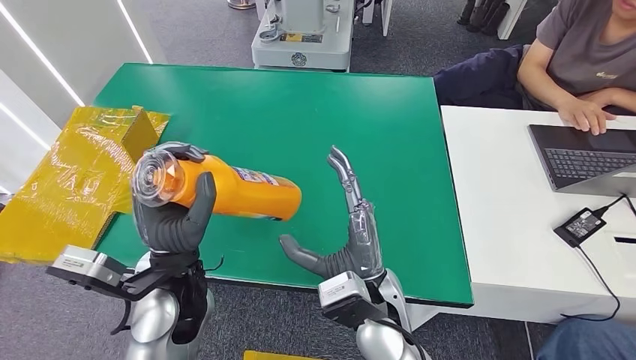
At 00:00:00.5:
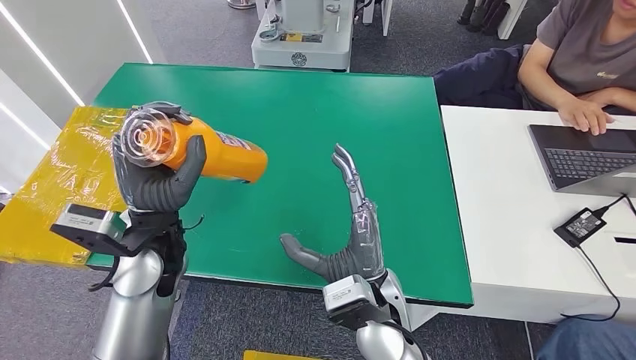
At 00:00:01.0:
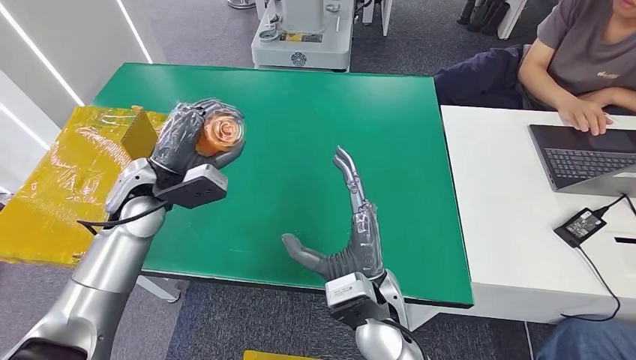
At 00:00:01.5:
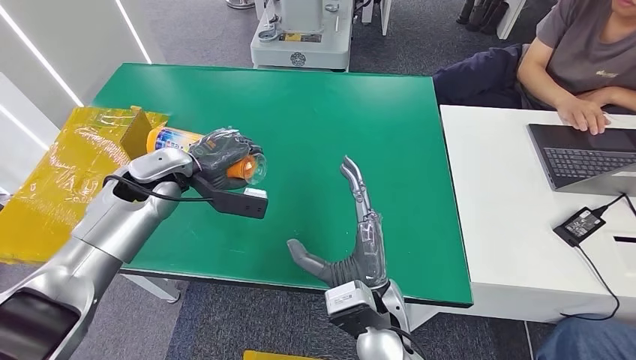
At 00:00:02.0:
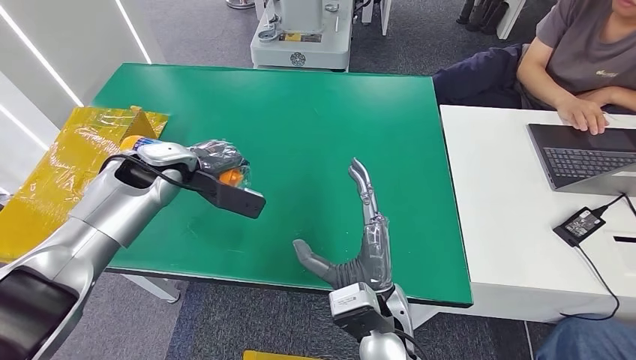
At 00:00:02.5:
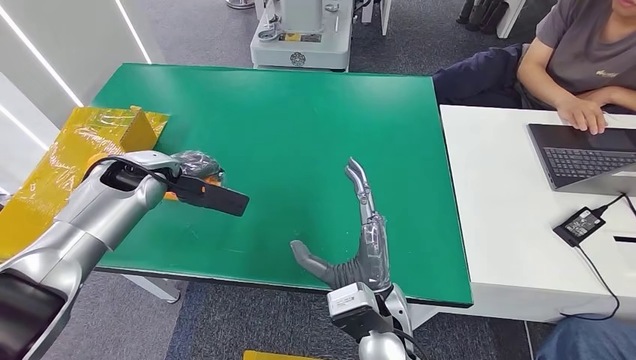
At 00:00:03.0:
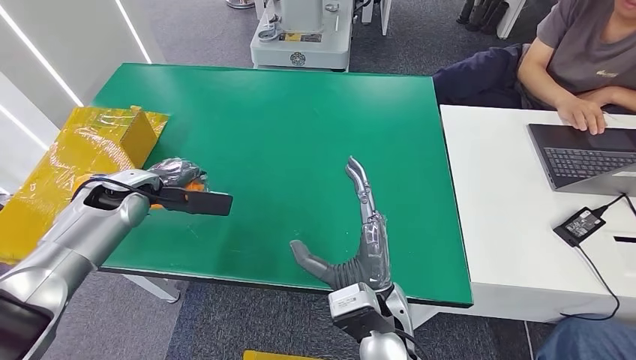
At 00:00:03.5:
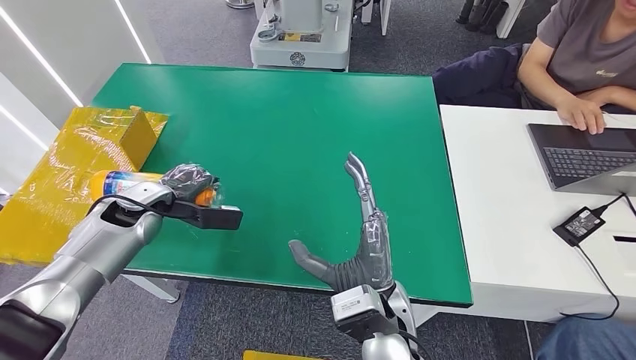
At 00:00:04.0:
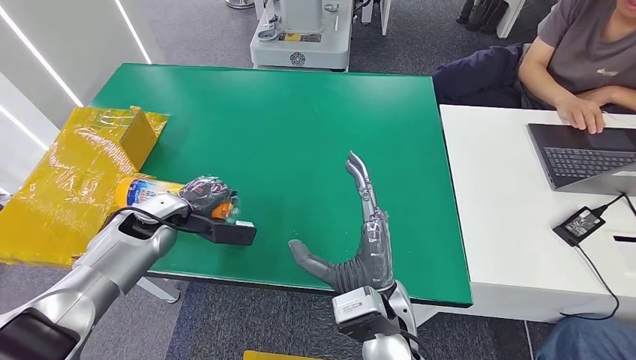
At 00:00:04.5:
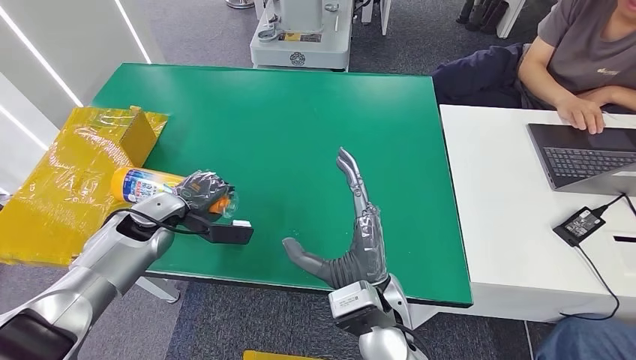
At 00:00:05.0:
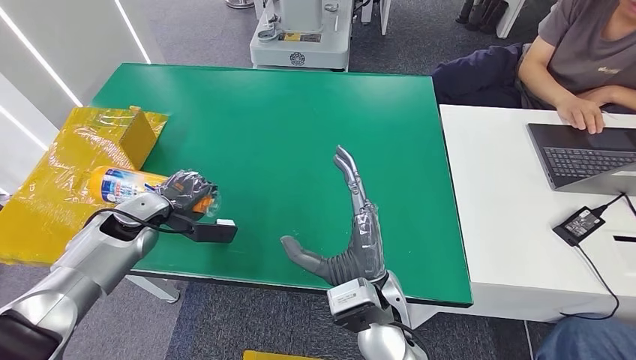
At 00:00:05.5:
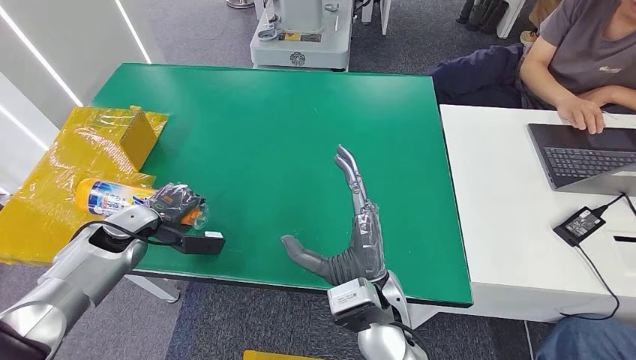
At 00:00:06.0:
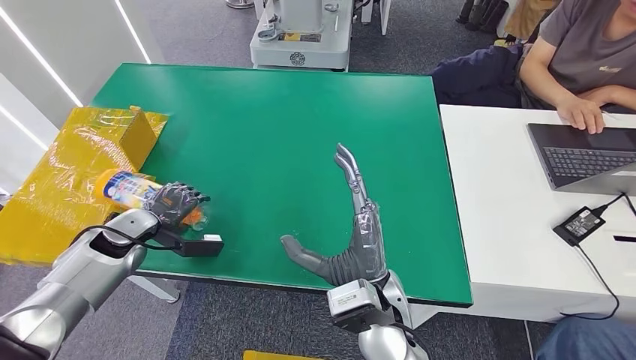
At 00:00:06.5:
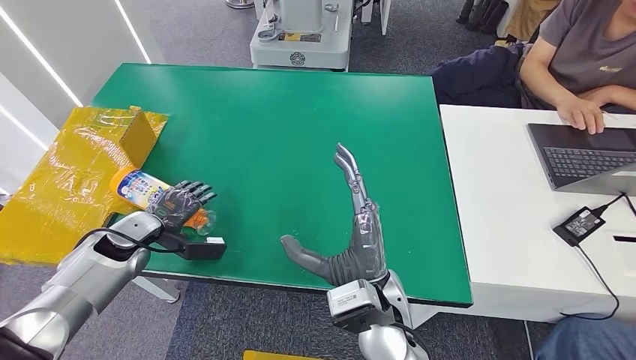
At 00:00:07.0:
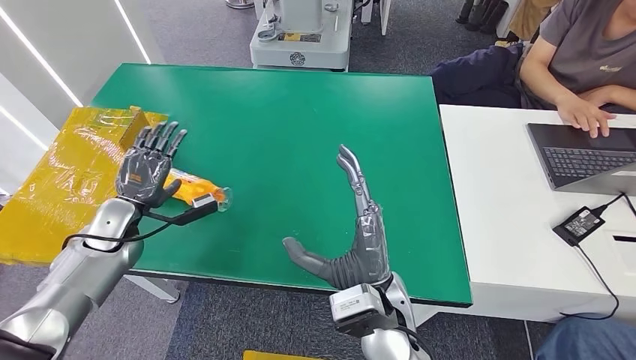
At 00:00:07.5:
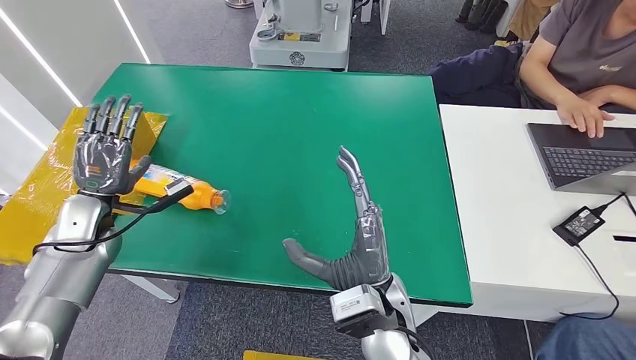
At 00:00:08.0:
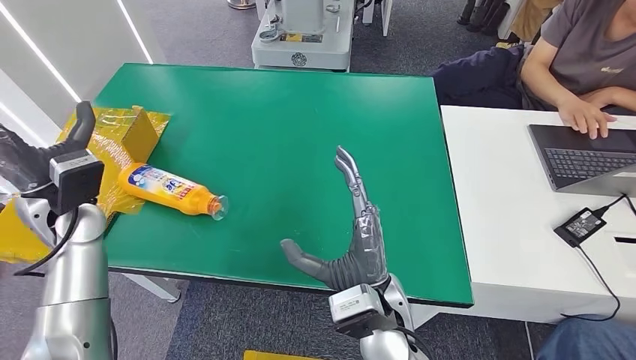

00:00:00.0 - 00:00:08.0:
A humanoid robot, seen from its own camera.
Step, 00:00:00.0 - 00:00:08.0: Turn the bottle to the front side.
00:00:00.0 - 00:00:02.0: The left hand travels to the left and forward by about 30 cm.
00:00:02.0 - 00:00:04.0: The left hand heads downward and backward, covering approximately 10 cm.
00:00:04.0 - 00:00:06.0: The left hand goes some 5 cm to the left.
00:00:06.0 - 00:00:08.0: The left hand moves to the right and upward, approximately 15 cm.

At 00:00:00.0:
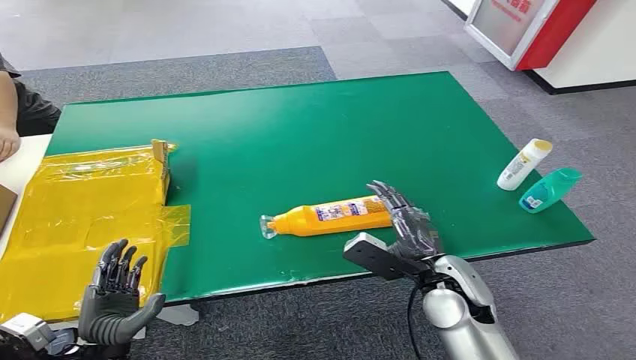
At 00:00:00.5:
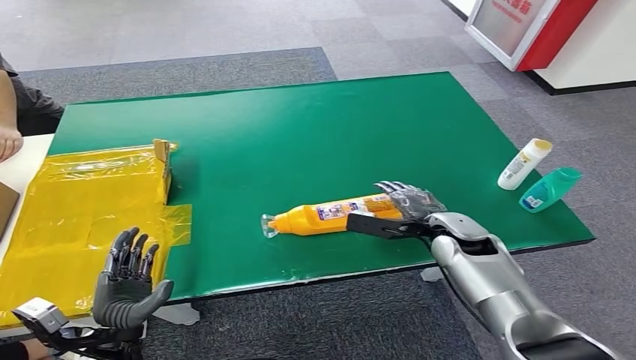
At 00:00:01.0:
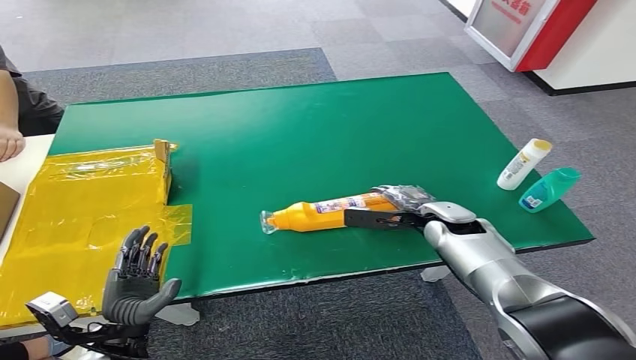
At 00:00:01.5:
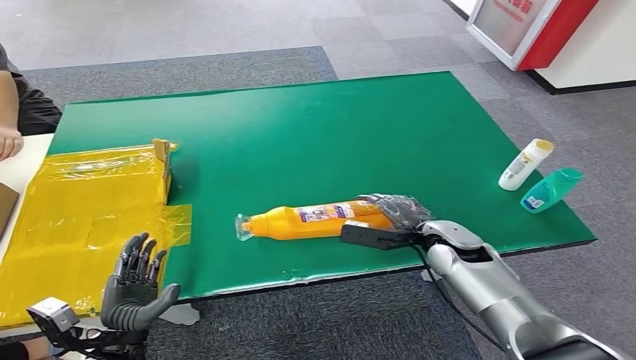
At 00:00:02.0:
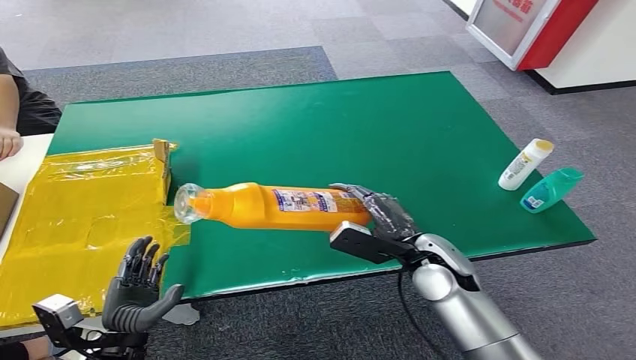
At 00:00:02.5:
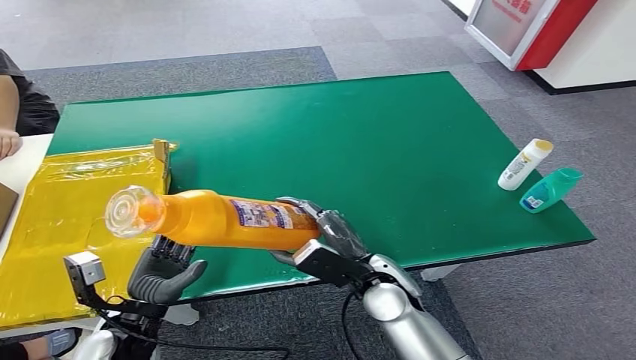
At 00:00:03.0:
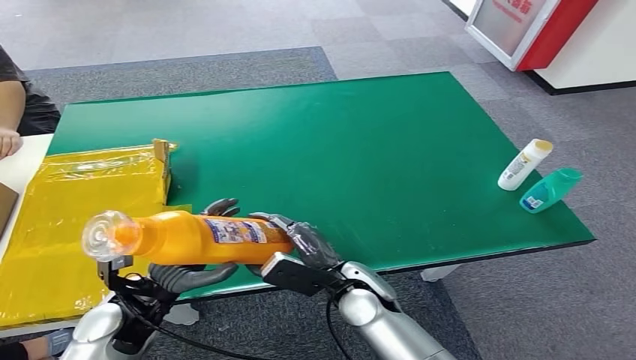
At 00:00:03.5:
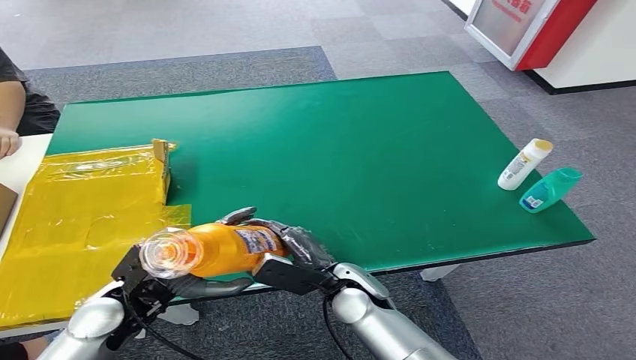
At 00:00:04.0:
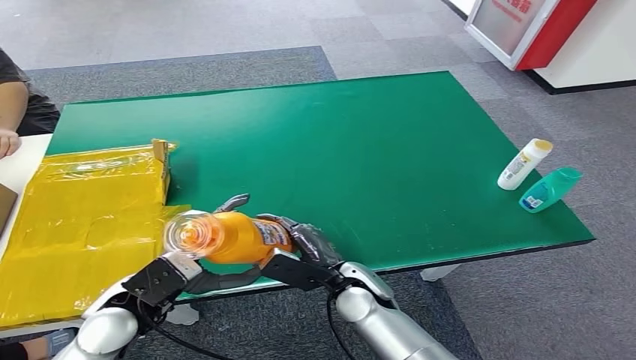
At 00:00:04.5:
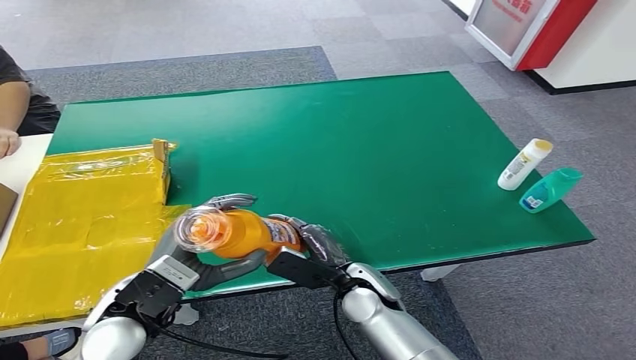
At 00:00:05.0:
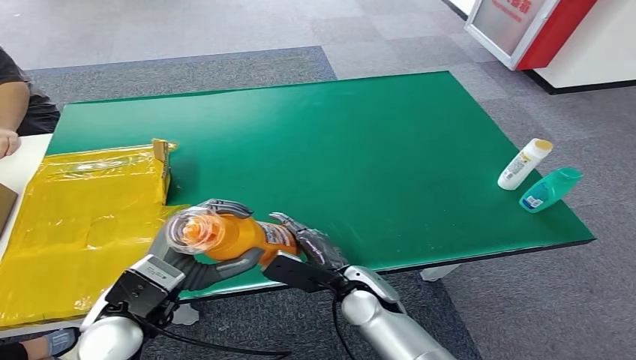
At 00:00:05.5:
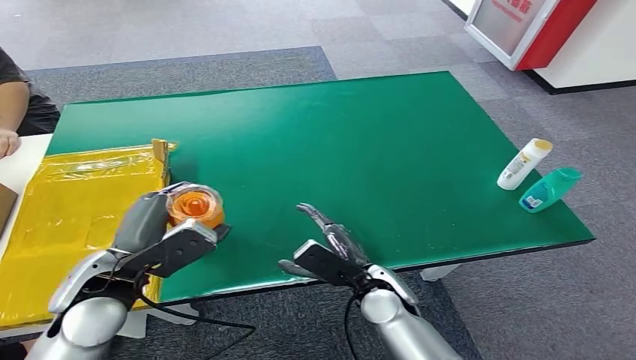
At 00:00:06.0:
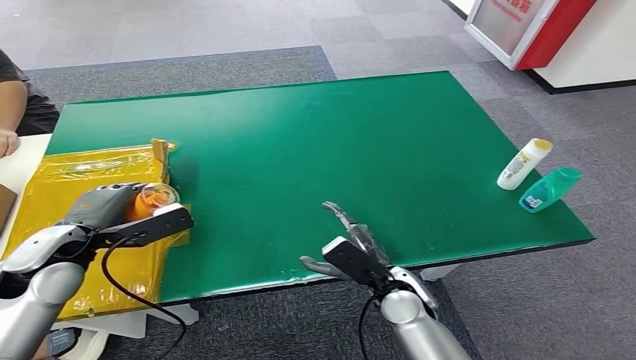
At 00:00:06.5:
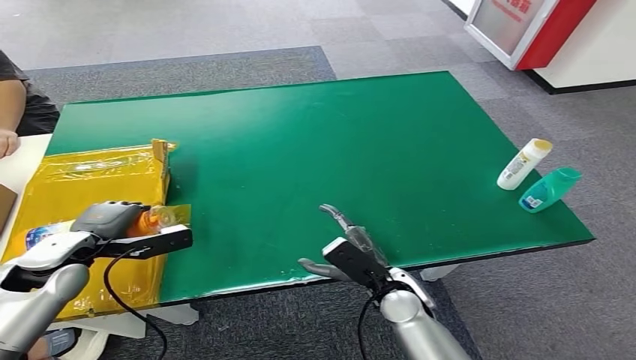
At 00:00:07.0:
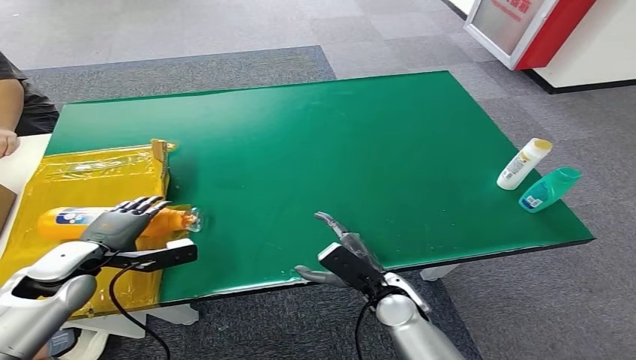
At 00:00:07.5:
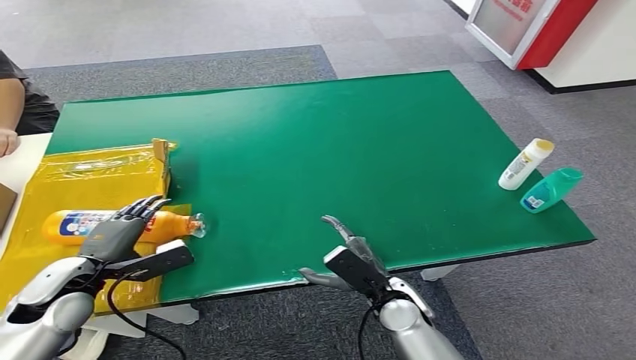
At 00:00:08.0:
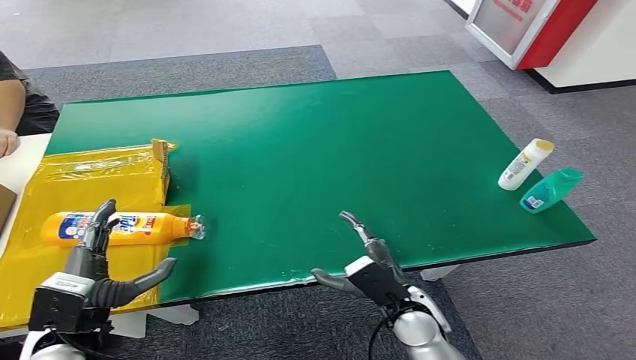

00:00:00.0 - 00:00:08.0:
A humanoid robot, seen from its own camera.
Step, 00:00:00.0 - 00:00:01.5: Pick up the bottle from the table.
Step, 00:00:02.0 - 00:00:08.0: Turn the bottle to the front side.
00:00:02.0 - 00:00:04.0: The right hand shifts about 15 cm to the left and downward. Meanwhile the left hand moves upward, forward and to the right, approximately 15 cm.
00:00:04.0 - 00:00:06.0: The left hand is displaced to the left and forward by roughly 10 cm. Meanwhile the right hand is displaced to the right by approximately 5 cm.
00:00:06.0 - 00:00:08.0: The left hand moves backward and downward, about 15 cm.

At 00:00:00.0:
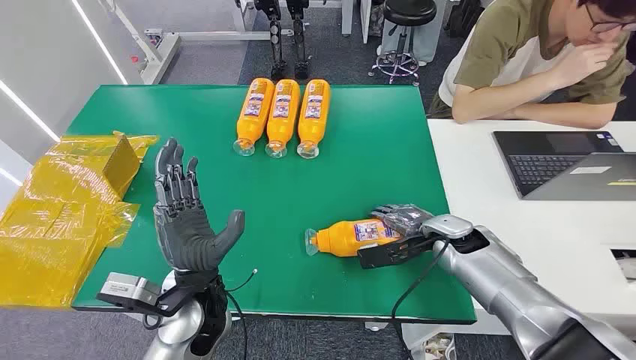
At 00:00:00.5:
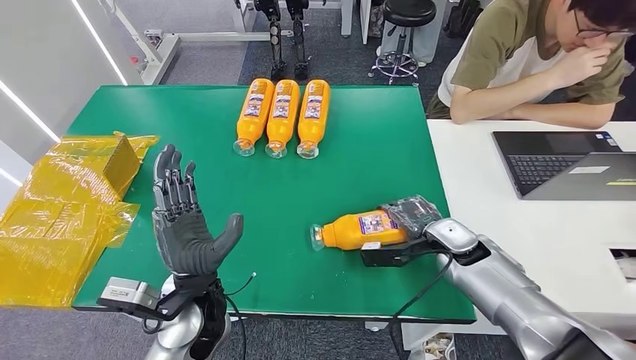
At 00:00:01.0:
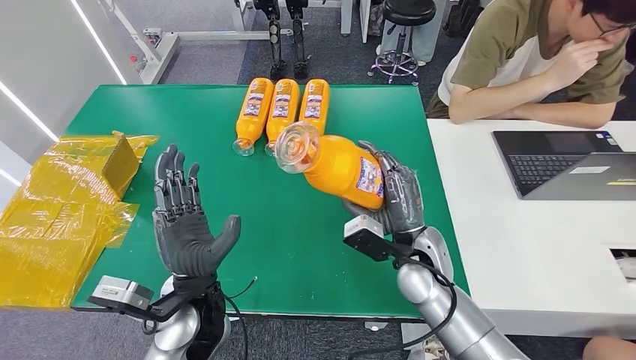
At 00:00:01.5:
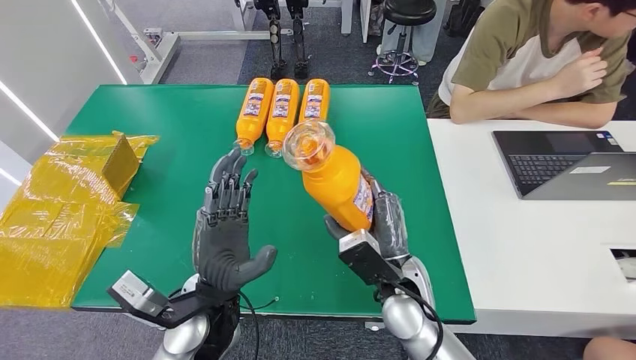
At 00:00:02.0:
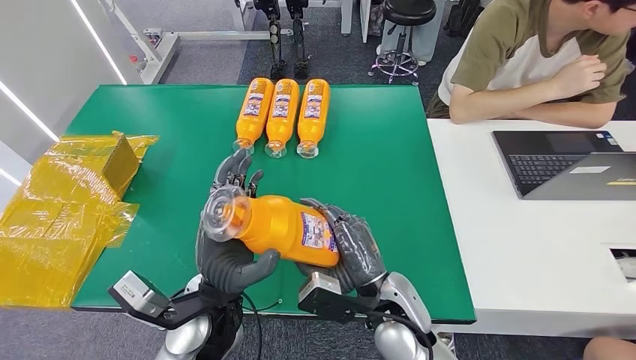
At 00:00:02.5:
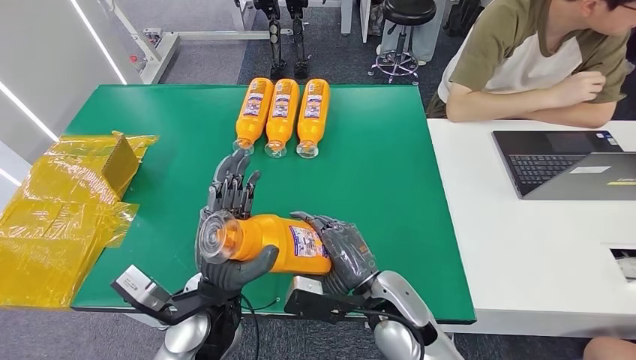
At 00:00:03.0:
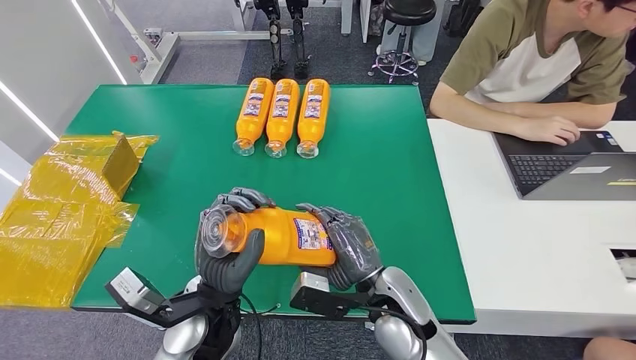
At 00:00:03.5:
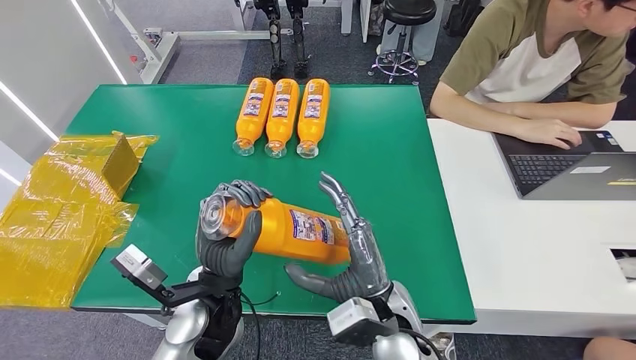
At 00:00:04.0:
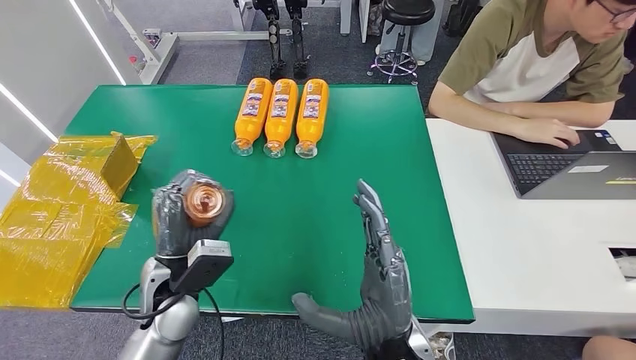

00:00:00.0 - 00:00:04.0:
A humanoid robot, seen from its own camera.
Step, 00:00:00.0 - 00:00:01.0: Pick up the bottle from the table.
